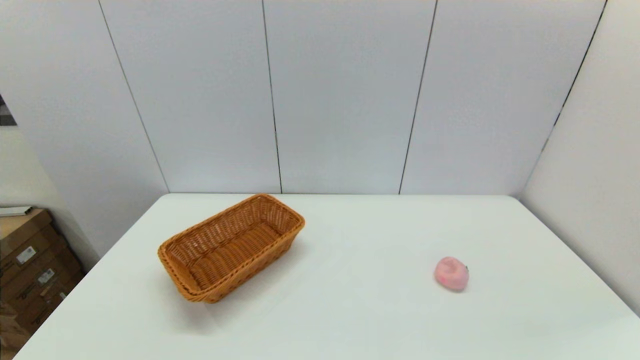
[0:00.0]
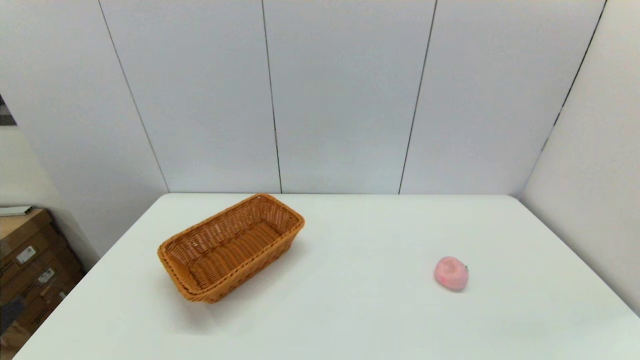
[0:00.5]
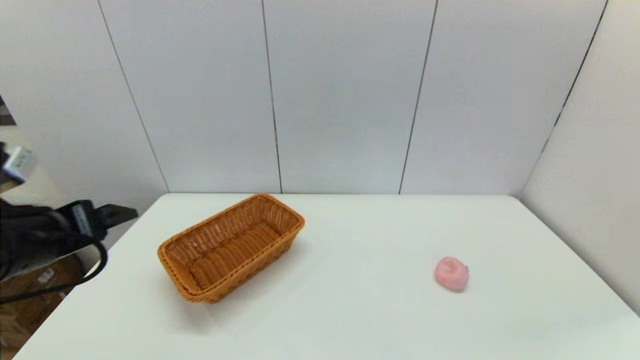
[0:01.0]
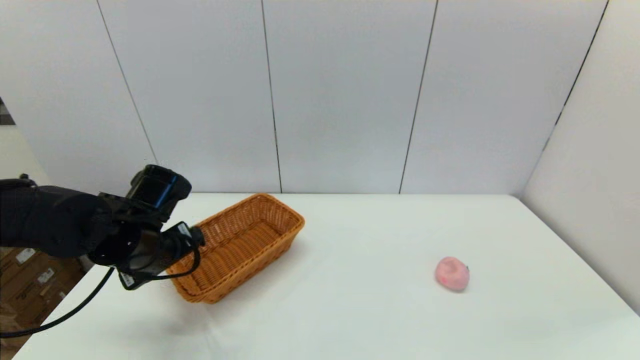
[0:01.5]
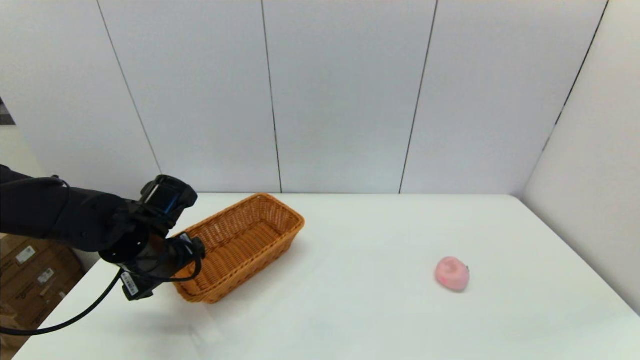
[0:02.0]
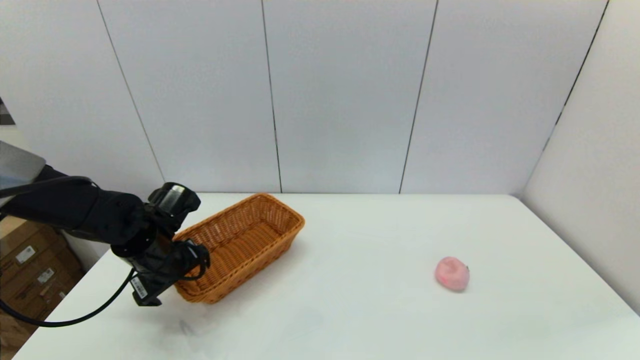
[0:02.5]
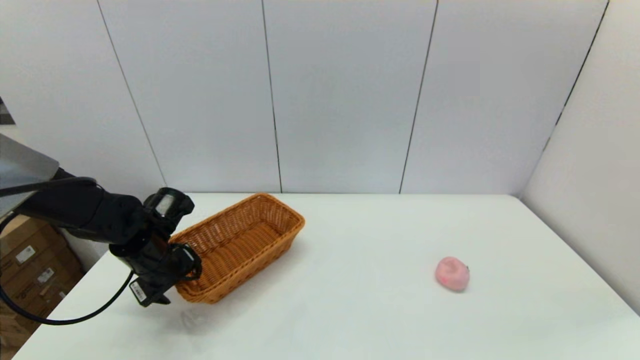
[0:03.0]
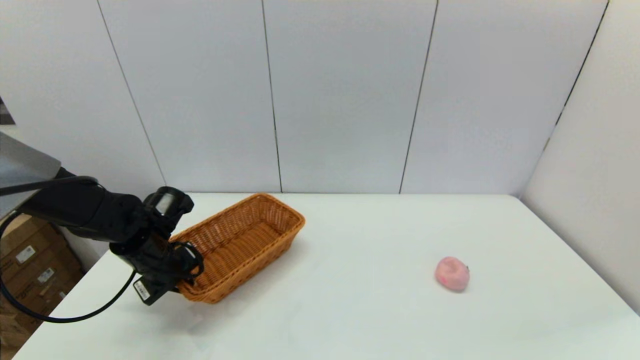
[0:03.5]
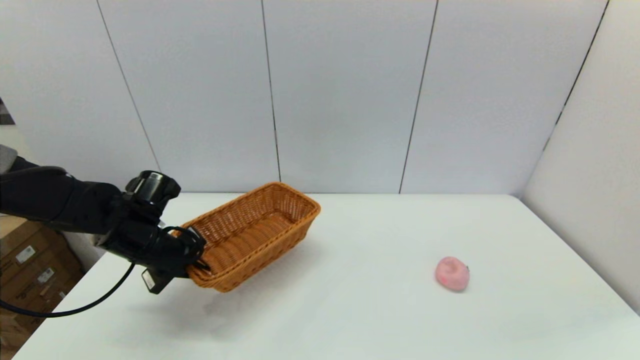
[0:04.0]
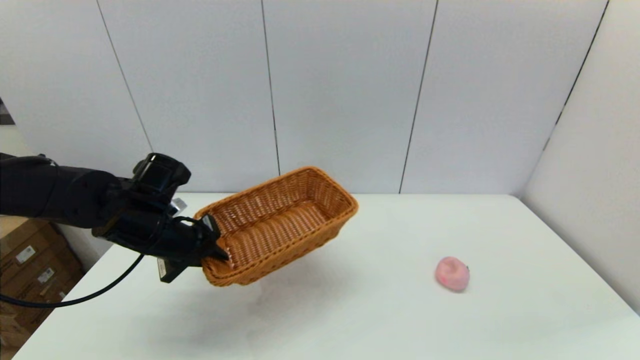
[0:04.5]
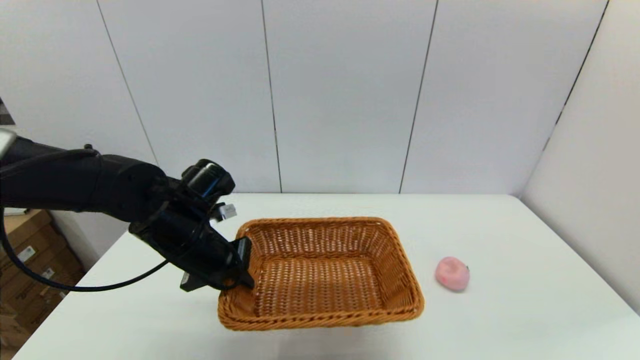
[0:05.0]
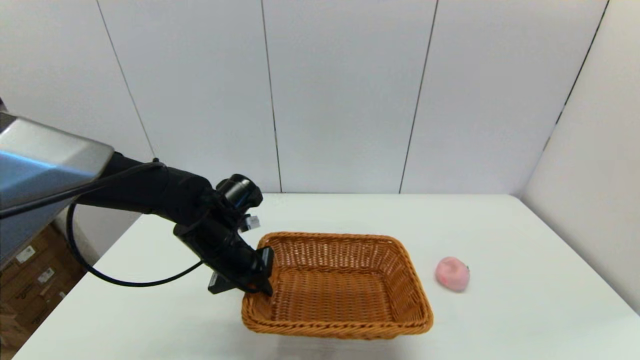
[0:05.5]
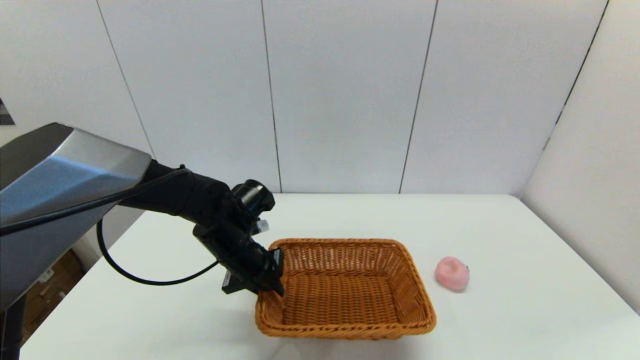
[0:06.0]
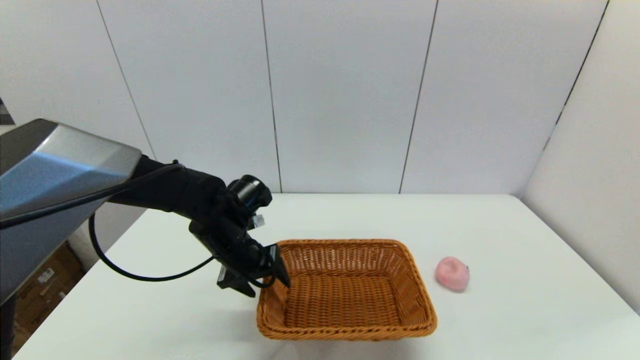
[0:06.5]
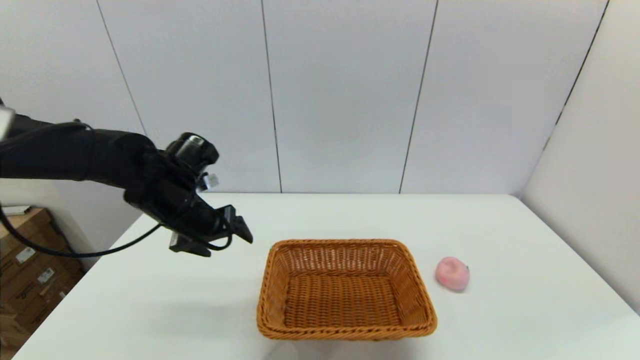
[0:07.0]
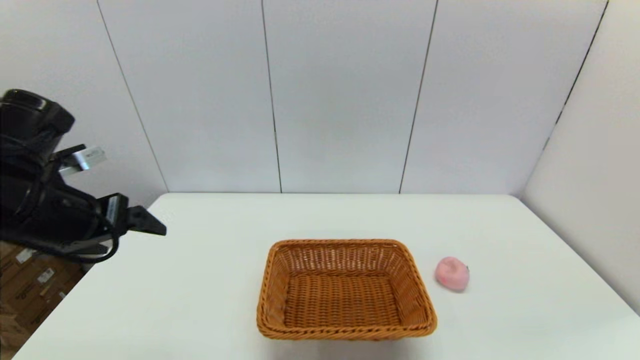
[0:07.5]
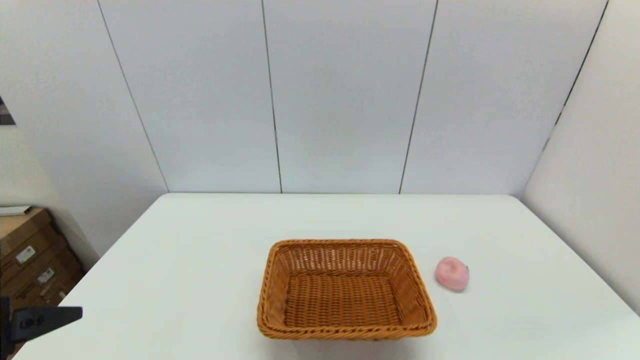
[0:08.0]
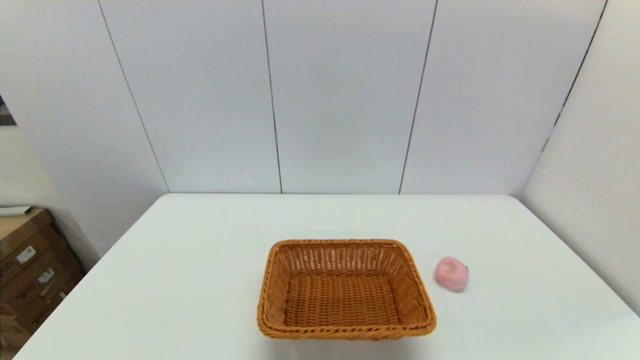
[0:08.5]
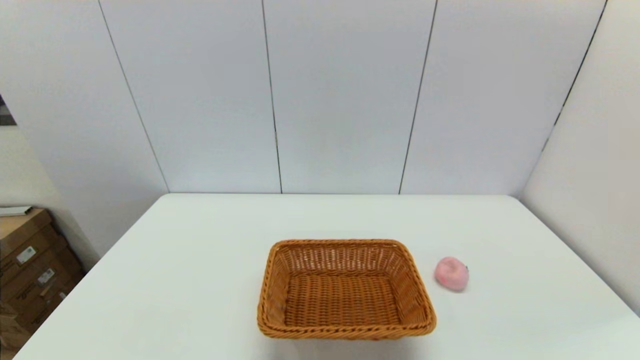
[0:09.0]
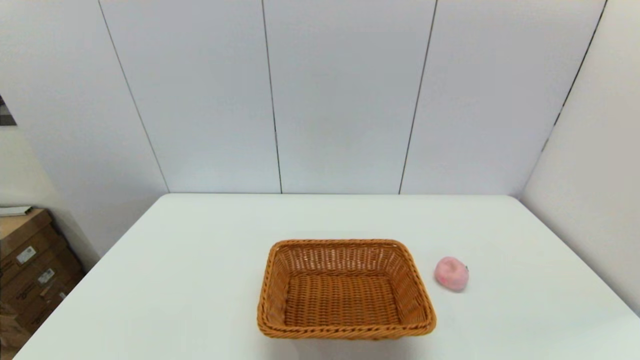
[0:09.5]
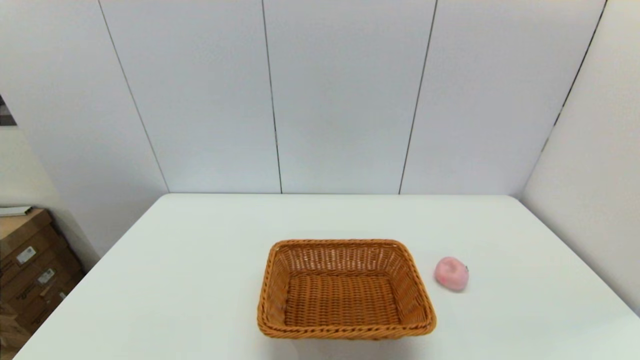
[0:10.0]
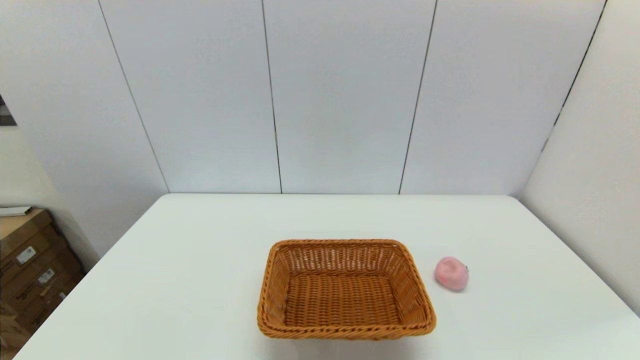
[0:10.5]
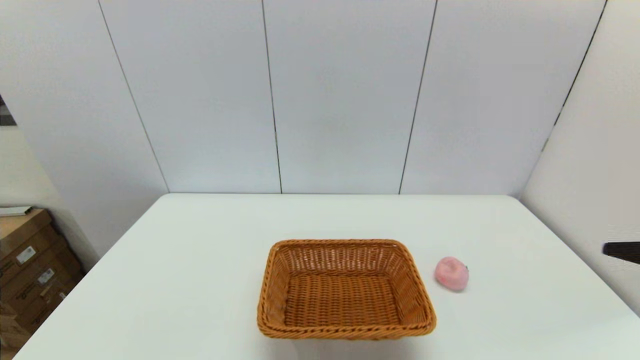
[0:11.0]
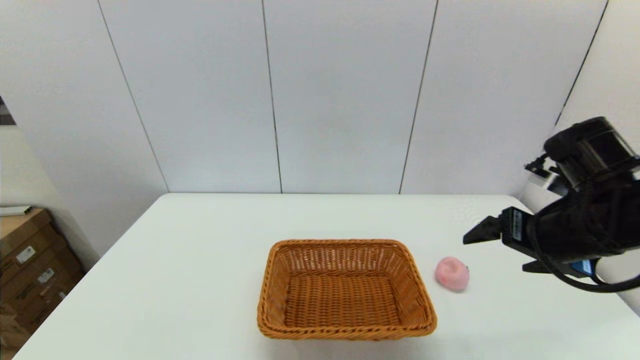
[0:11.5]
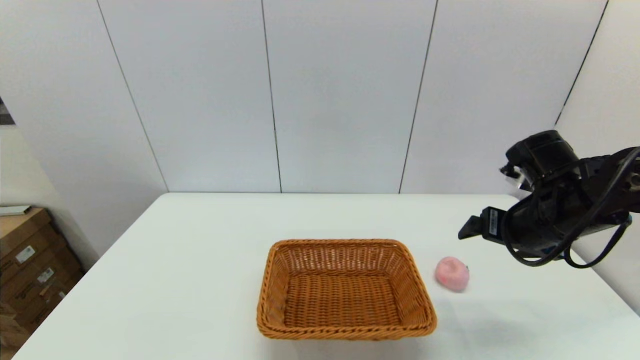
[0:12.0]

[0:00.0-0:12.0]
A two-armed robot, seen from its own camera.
Step, 0:00.0 to 0:03.5: Grasp the light basket with the left gripper.
Step, 0:04.0 to 0:06.0: Place the light basket on the middle of the table with the left gripper.
0:00.0 to 0:02.0: The left gripper is displaced forward by approximately 30 cm.
0:02.0 to 0:04.0: The left gripper closes its fingers.
0:04.0 to 0:06.0: The left gripper travels to the right by roughly 15 cm.
0:06.0 to 0:08.0: The left gripper goes some 35 cm backward, to the left and upward, and opens.
0:08.0 to 0:10.0: The left gripper is displaced downward and backward by about 20 cm.
0:10.0 to 0:12.0: The right gripper travels forward by about 30 cm.

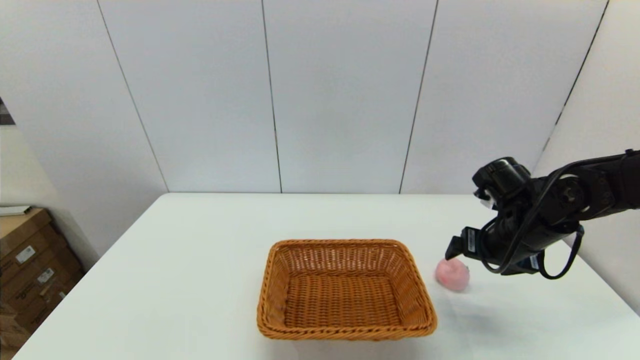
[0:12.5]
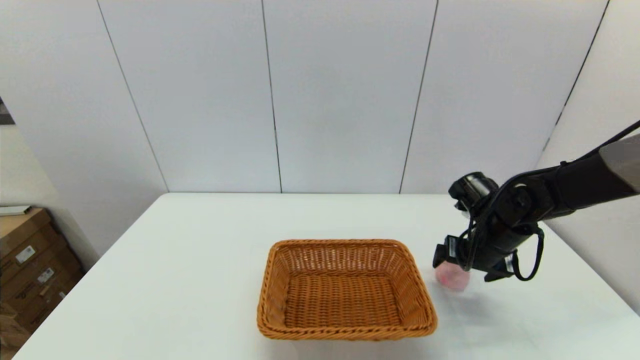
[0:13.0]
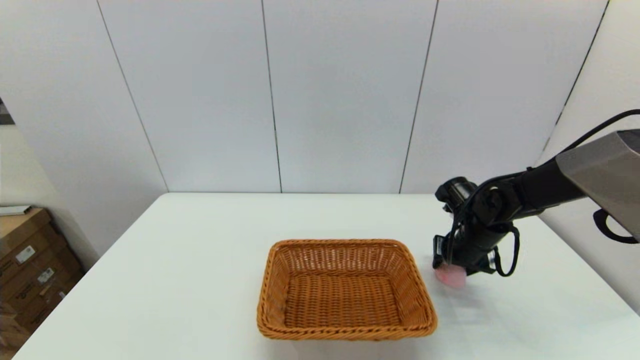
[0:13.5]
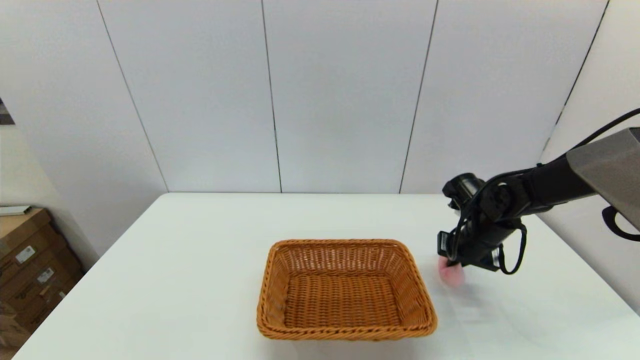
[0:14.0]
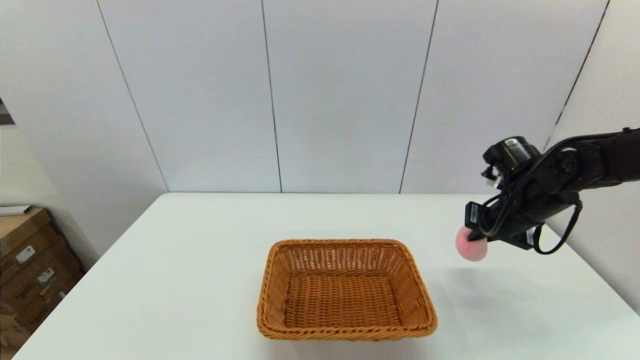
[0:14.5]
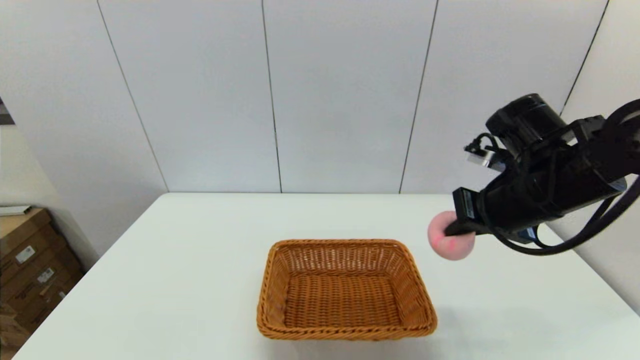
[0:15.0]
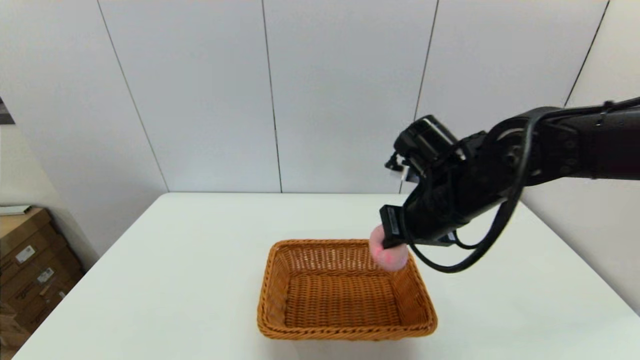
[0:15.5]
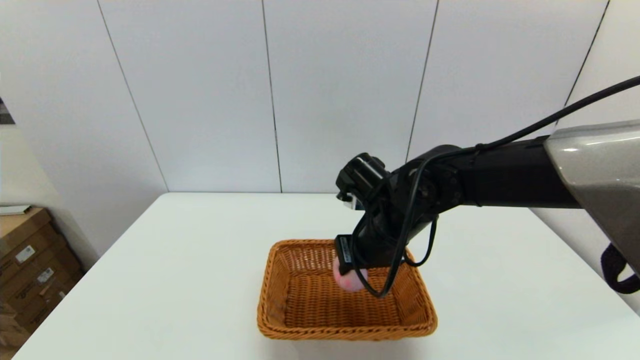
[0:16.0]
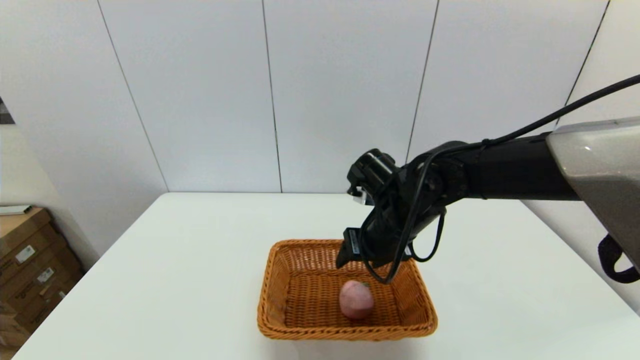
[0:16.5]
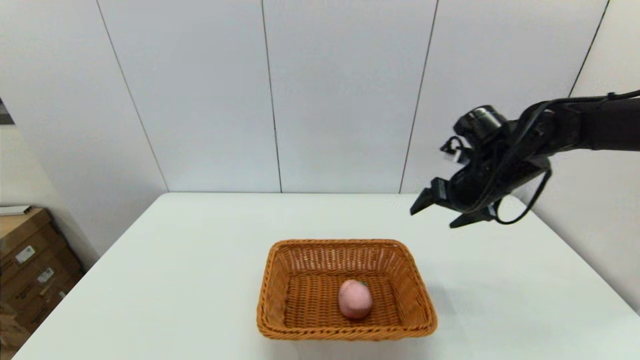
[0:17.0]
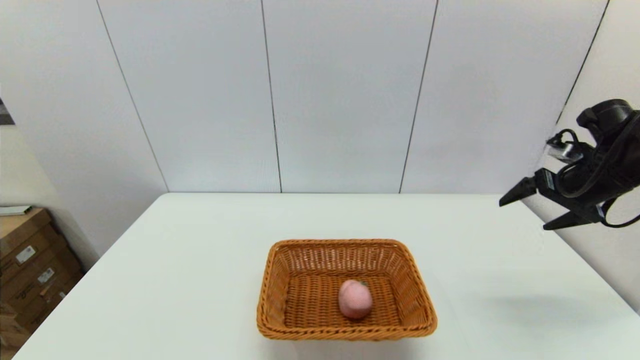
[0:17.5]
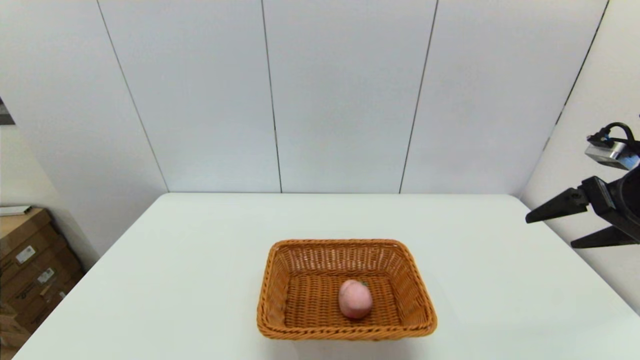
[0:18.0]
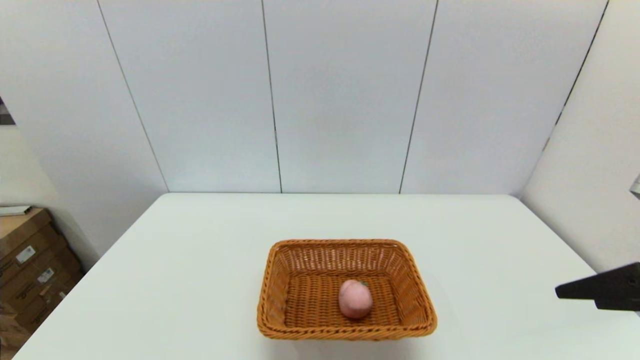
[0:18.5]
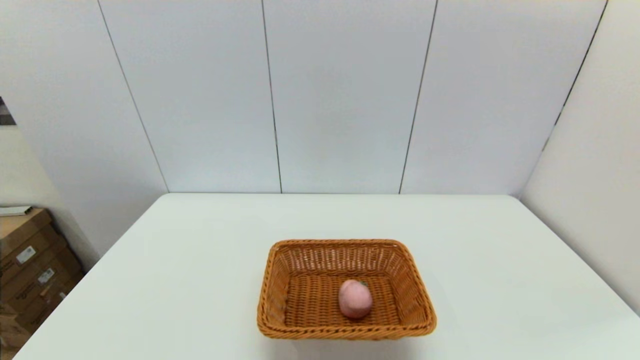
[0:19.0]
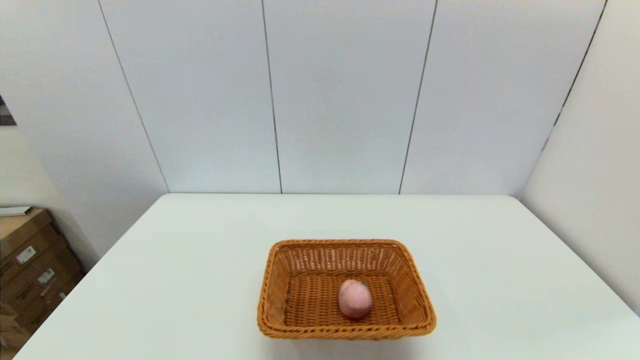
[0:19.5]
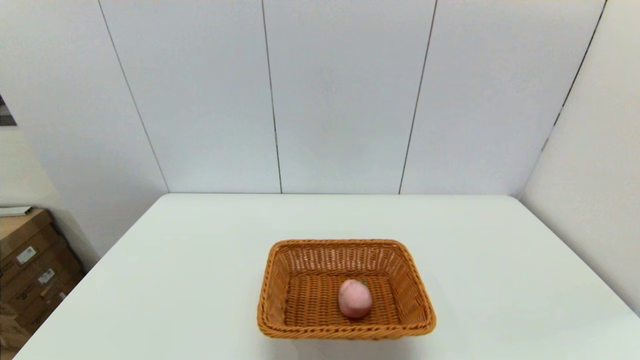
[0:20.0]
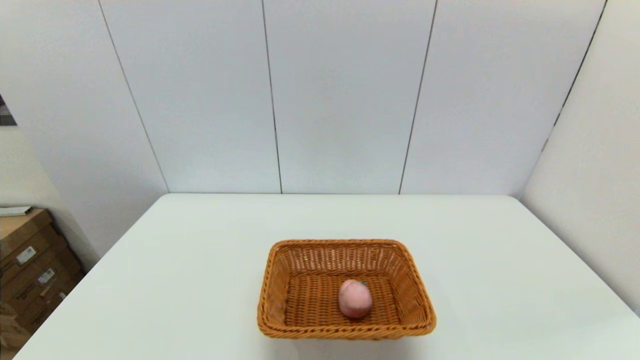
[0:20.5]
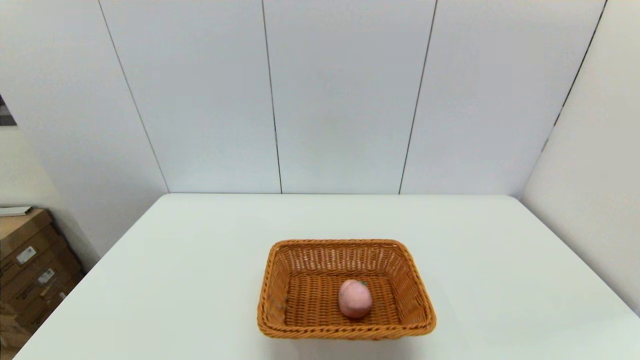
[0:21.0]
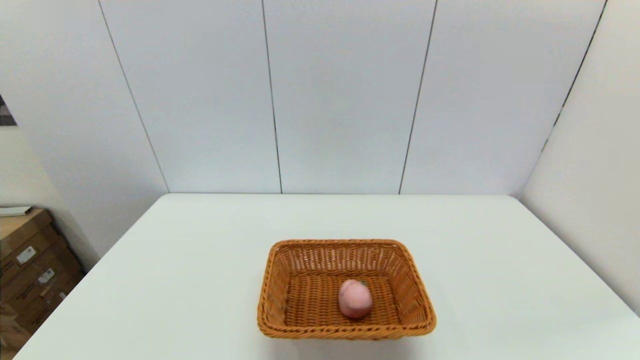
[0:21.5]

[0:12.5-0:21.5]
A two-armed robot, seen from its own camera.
Step, 0:14.5 to 0:16.5: Place the peach into the light basket with the right gripper.
0:12.5 to 0:14.5: The right gripper travels downward and back again, approximately 5 cm each way, and closes.
0:14.5 to 0:17.0: The right gripper goes to the left and returns, some 20 cm each way, and opens.
0:17.0 to 0:19.5: The right gripper goes approximately 40 cm backward.
